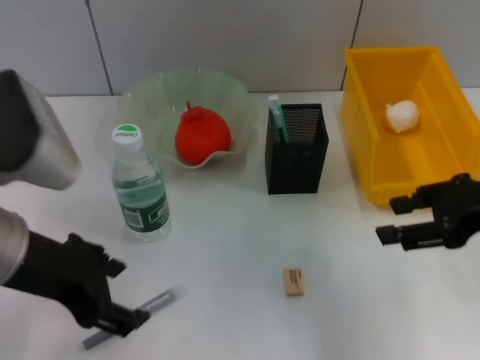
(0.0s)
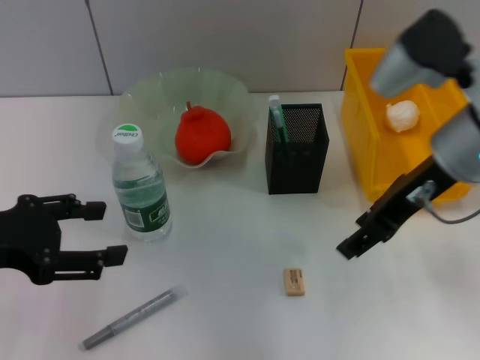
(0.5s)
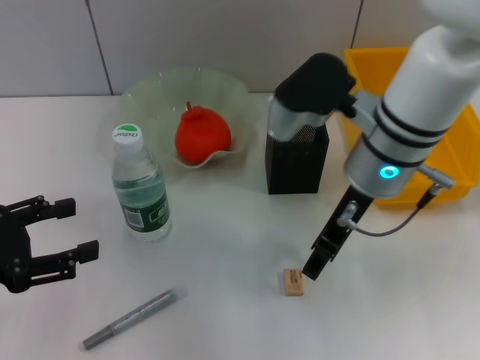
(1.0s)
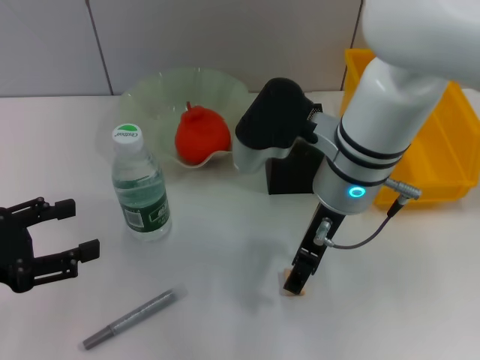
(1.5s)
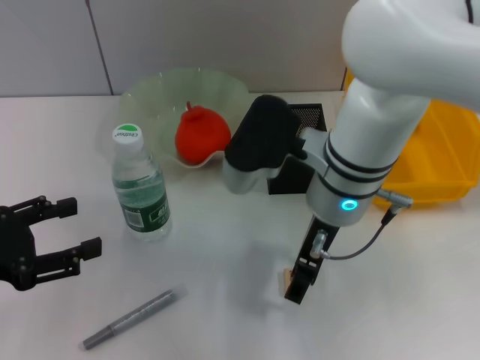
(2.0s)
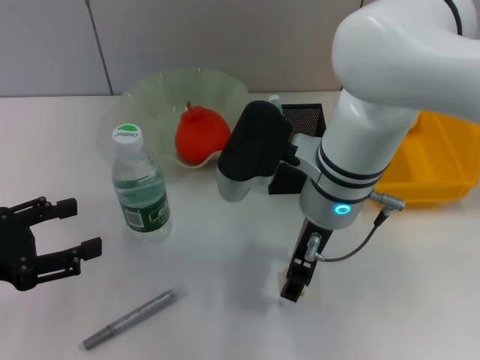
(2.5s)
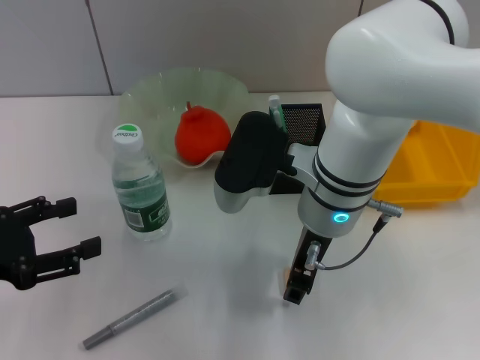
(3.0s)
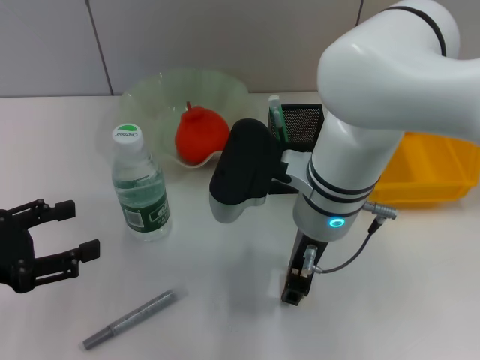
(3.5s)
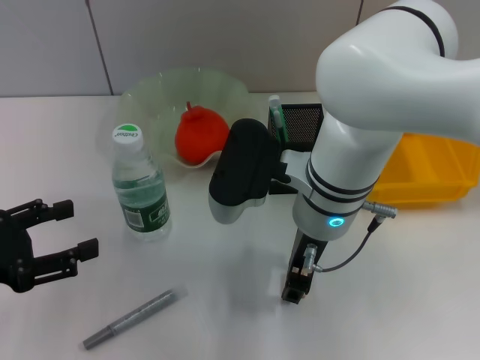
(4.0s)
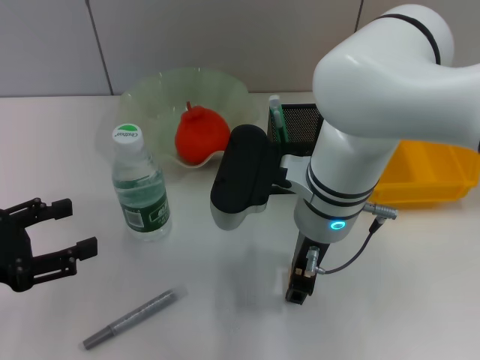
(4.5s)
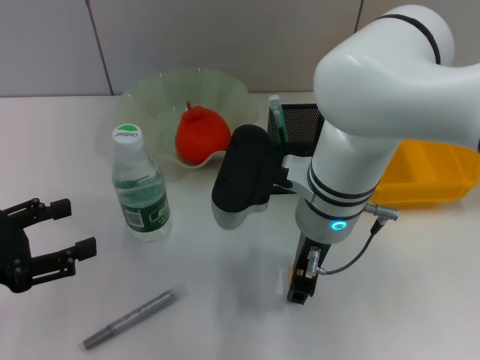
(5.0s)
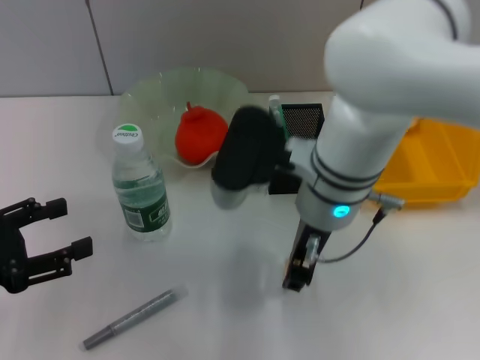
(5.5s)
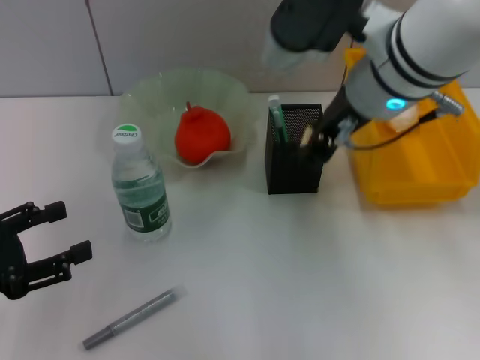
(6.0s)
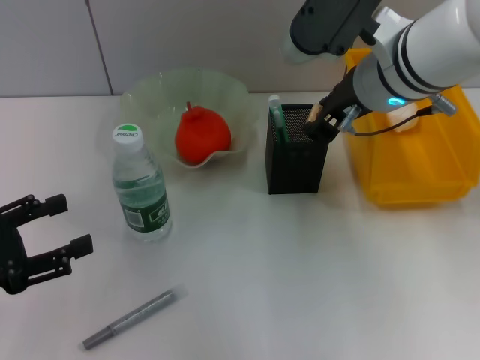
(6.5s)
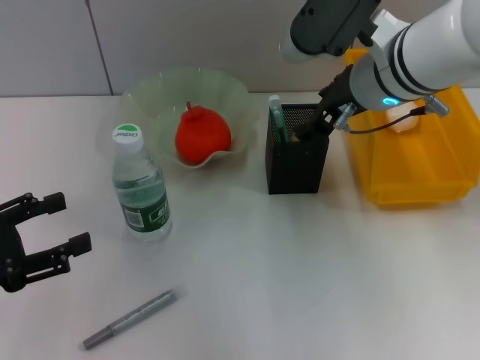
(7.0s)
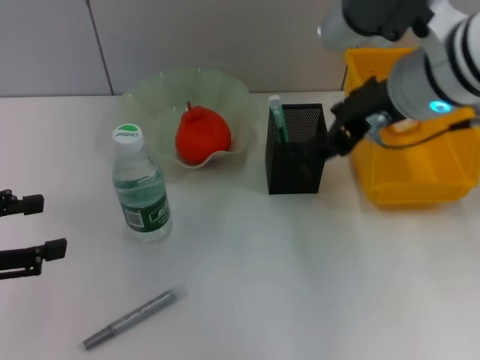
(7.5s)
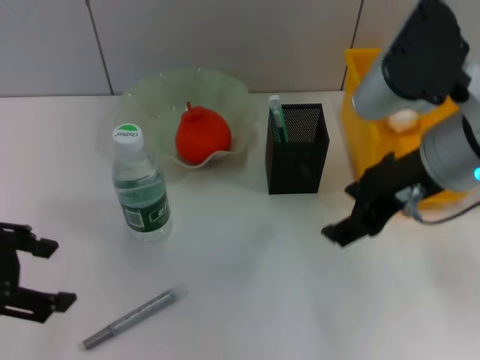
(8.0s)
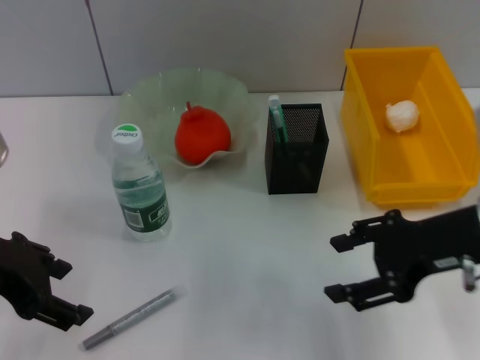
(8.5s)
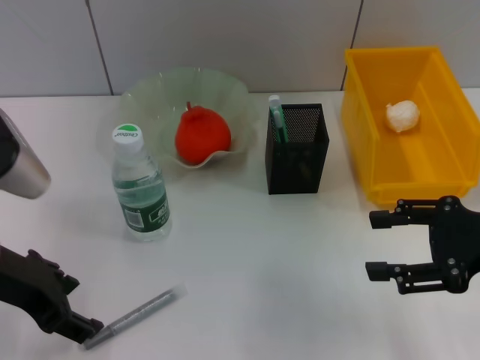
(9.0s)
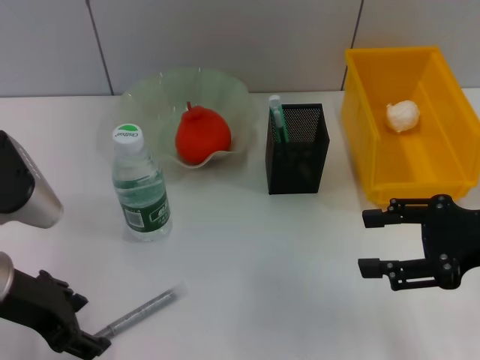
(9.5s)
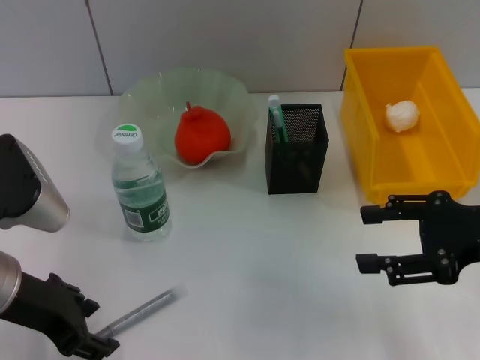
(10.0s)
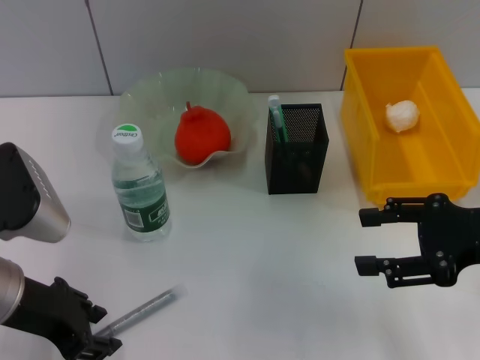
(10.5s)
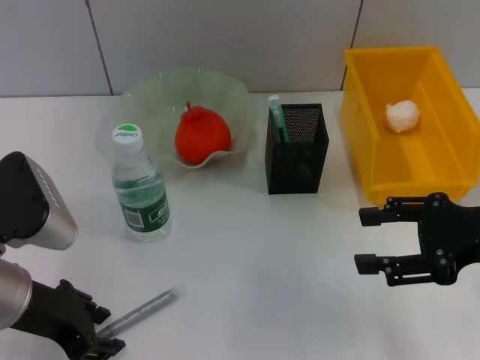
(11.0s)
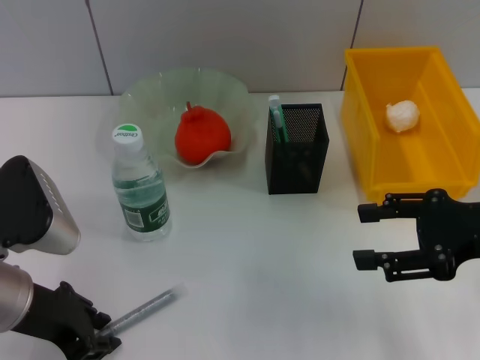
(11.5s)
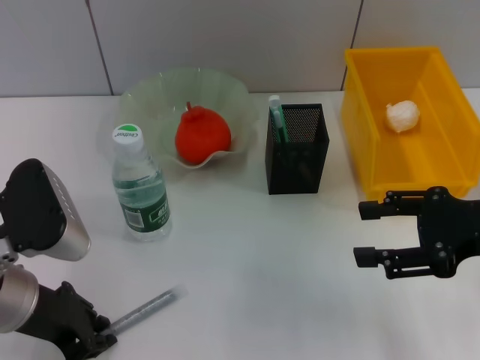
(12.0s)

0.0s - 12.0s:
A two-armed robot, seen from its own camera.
Step, 0.0s - 5.0s: Grab the eraser with the right hand.
Step, 5.5s - 7.0s: Put the eraser into the pen holder with the right hand.
0.0s - 2.0s: The right gripper goes about 20 cm to the left; the left gripper travels to the left and downward by approximately 15 cm.
2.0s - 4.0s: The right gripper closes up.
4.0s - 6.0s: The right gripper goes about 10 cm upward.
6.0s - 8.0s: The right gripper moves to the right and backward, approximately 10 cm, and opens up. Meanwhile the left gripper travels upward by about 10 cm.
8.0s - 10.0s: The right gripper shifts roughly 15 cm to the right and downward; the left gripper is displaced downward and to the right by roughly 10 cm.
10.0s - 12.0s: The left gripper closes its fingers.

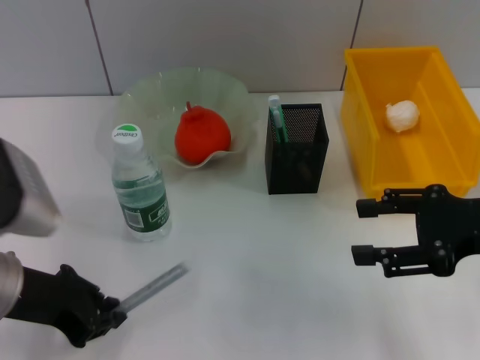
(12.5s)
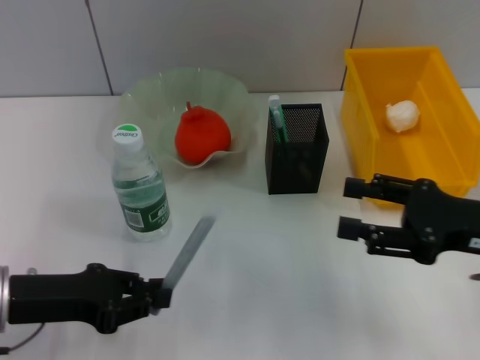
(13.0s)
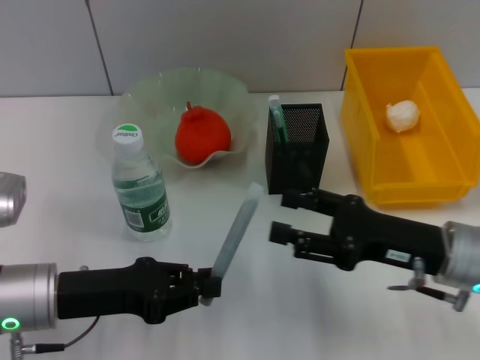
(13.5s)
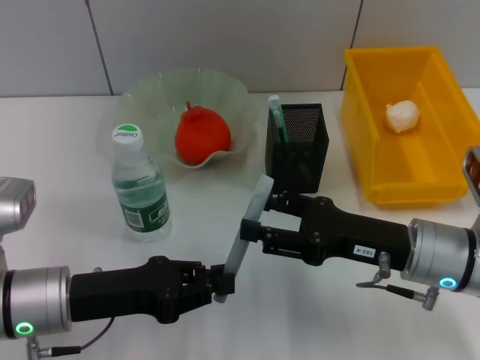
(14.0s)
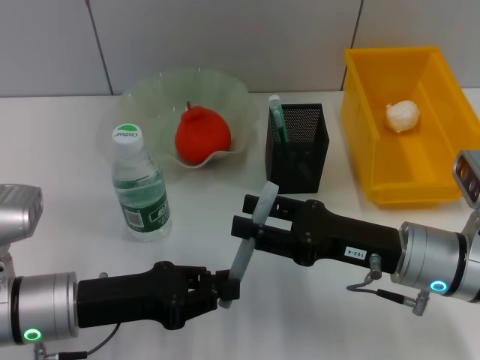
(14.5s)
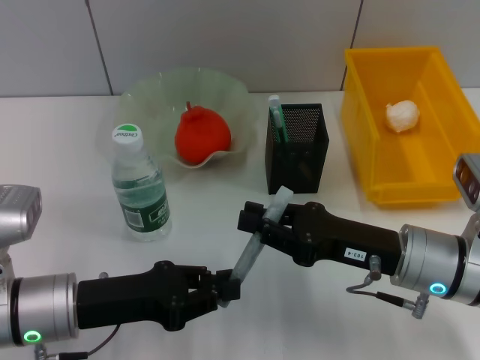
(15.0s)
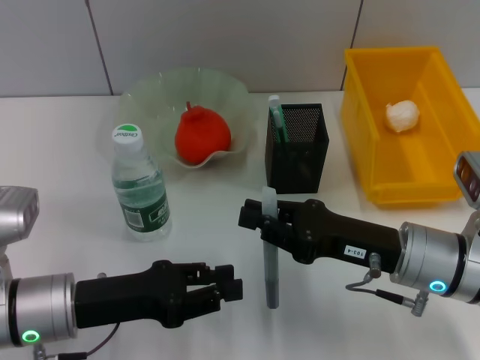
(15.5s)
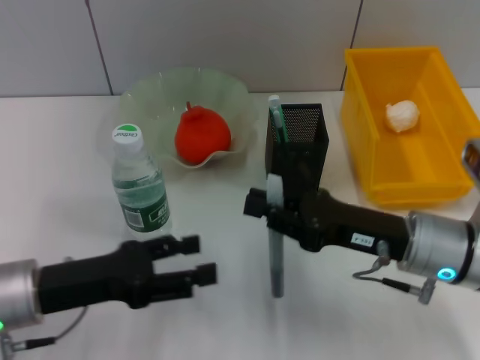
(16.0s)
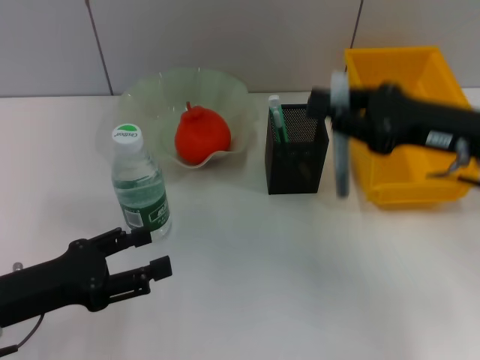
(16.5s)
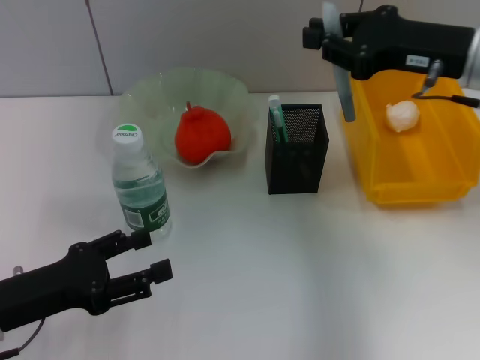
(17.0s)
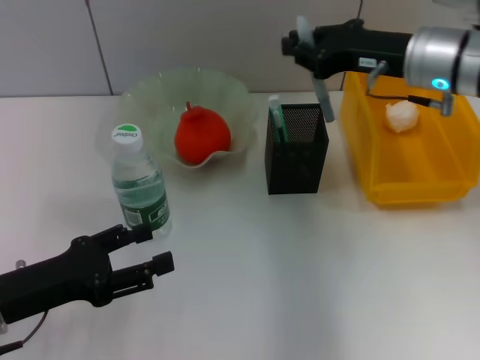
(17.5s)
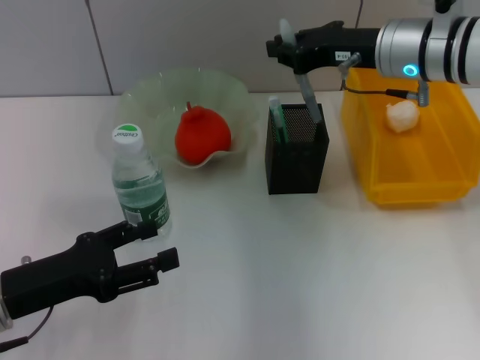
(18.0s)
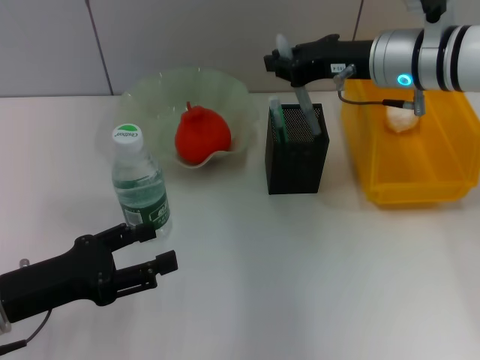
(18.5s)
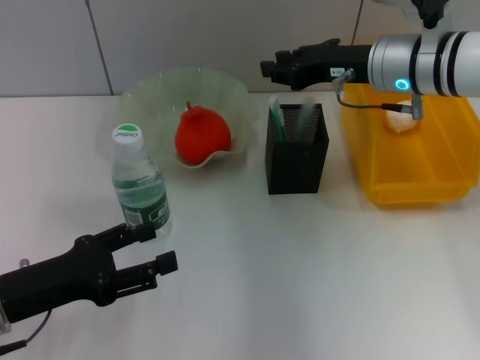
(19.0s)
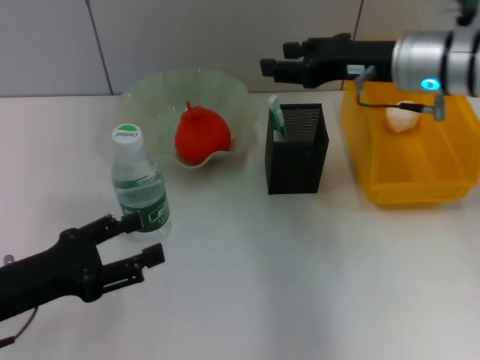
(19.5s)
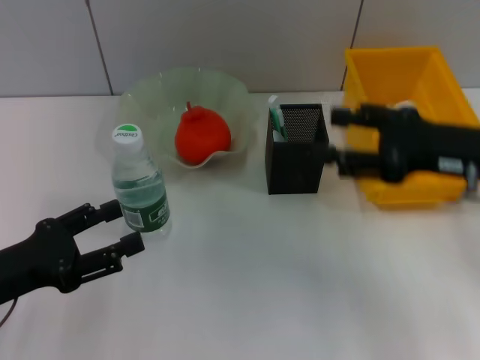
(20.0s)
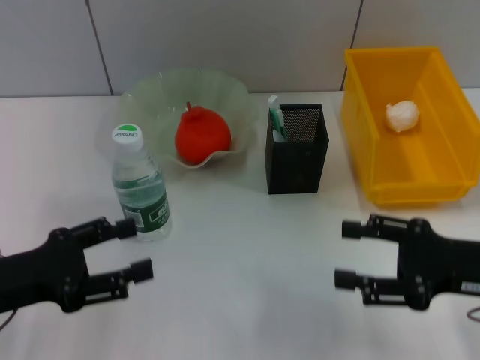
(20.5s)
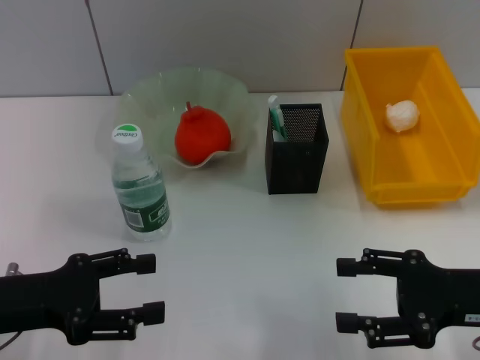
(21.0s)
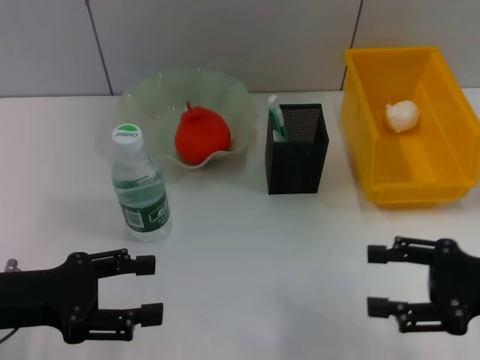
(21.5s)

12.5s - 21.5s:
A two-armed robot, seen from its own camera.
Step, 12.5s - 15.0s: Pass the gray glue from the left hand to the right hand.
Step, 15.5s - 19.0s: Place the gray glue into the pen holder with the right hand.
12.5s - 14.5s: The right gripper heads to the left and downward, covering some 15 cm; the left gripper heads downward, covering approximately 5 cm.
14.5s - 17.0s: The left gripper travels to the left by approximately 5 cm, and opens up, while the right gripper moves upward and forward, roughly 20 cm, and closes its fingers.
17.0s - 19.5s: The right gripper opens.
19.5s - 21.5s: The right gripper goes some 25 cm backward, to the right and downward.

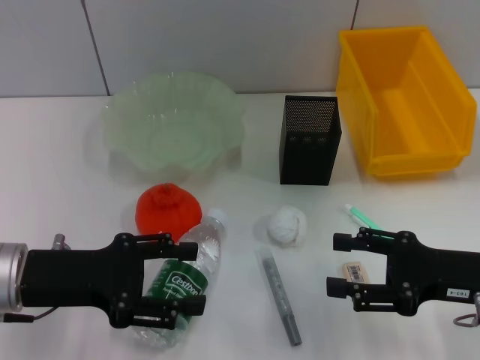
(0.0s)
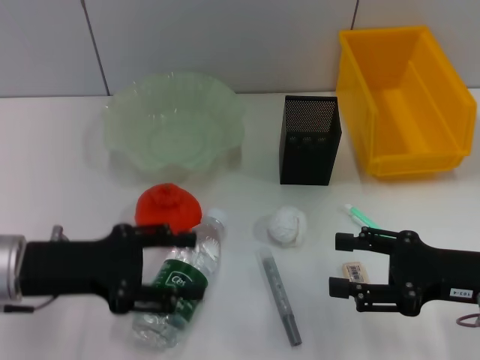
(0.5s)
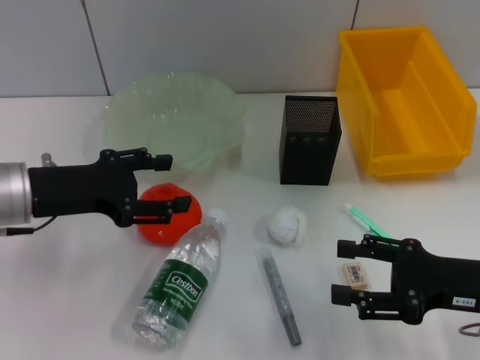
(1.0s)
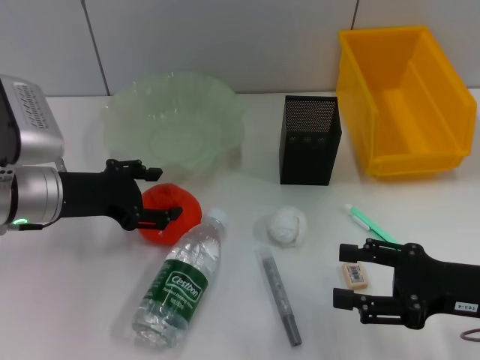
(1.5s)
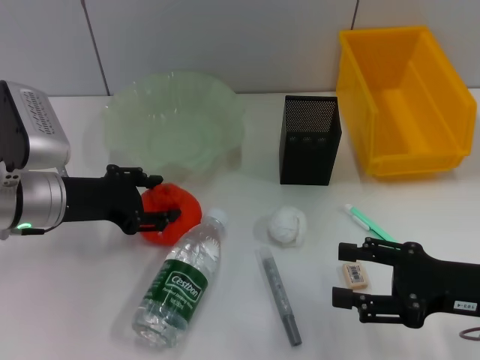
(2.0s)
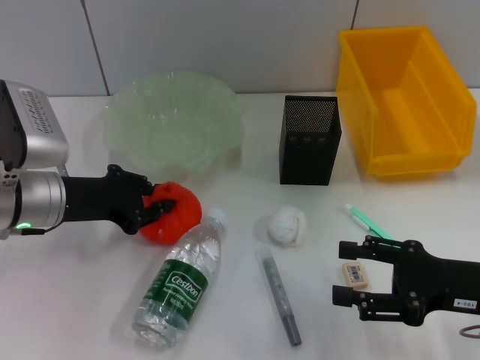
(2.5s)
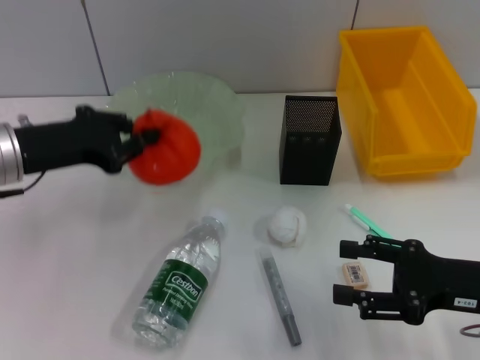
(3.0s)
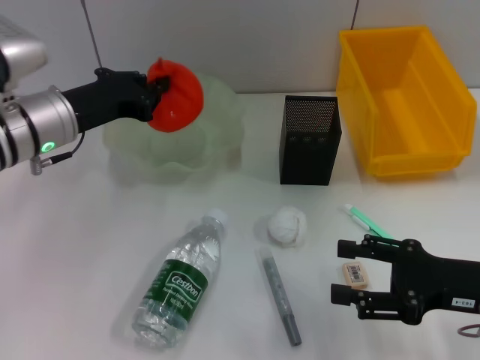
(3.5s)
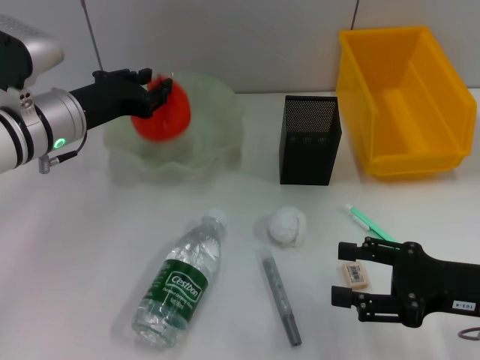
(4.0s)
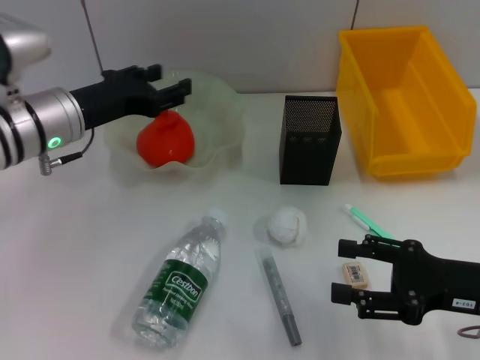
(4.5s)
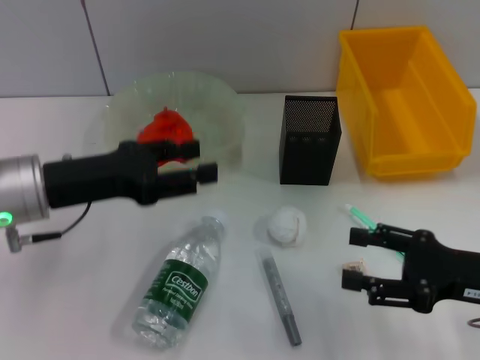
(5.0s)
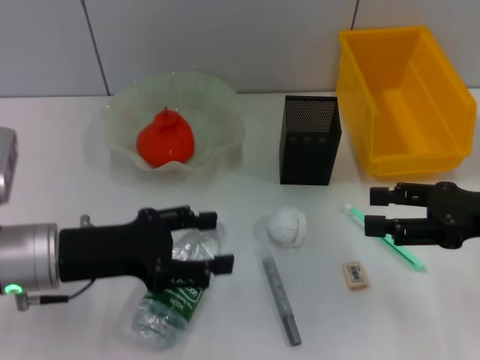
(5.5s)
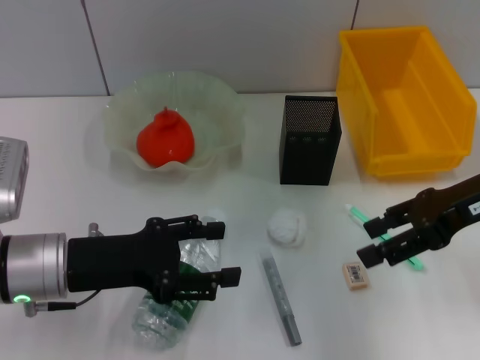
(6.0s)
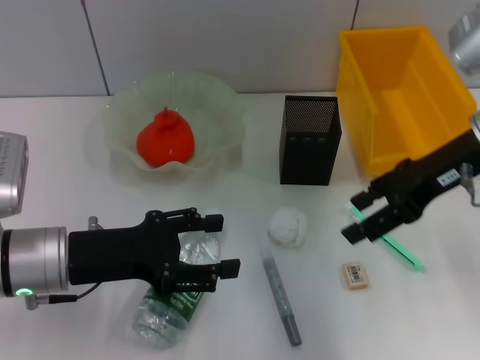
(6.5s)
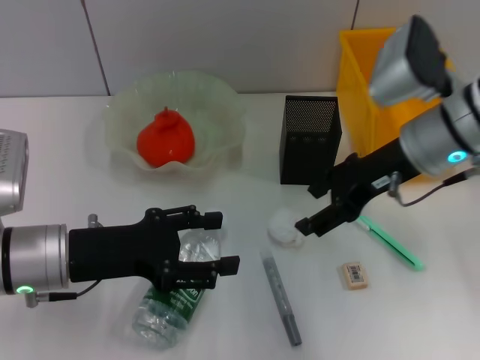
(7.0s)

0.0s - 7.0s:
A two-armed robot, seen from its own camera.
Step, 0.0s - 2.0s: Grab the orange with the left hand.
Step, 2.5s - 4.0s: Place the orange into the fruit bowl with the left hand.
0.0s - 2.0s: The left gripper heads forward, covering roughly 10 cm.
2.0s - 3.5s: The left gripper changes place by about 5 cm, and closes up.
3.5s - 5.0s: The left gripper goes roughly 5 cm backward, and opens up.
5.0s - 7.0s: The left gripper ends up about 5 cm from where it was. Meanwhile the right gripper moves forward, to the left and upward, about 20 cm.
